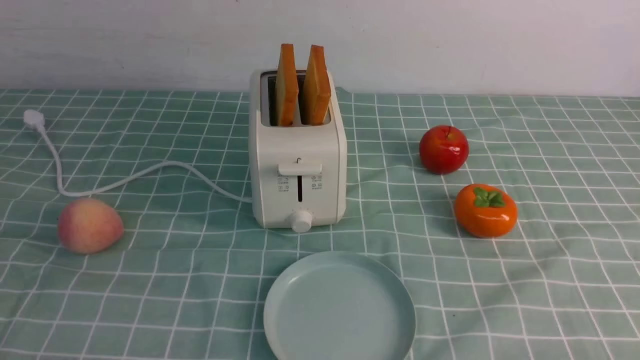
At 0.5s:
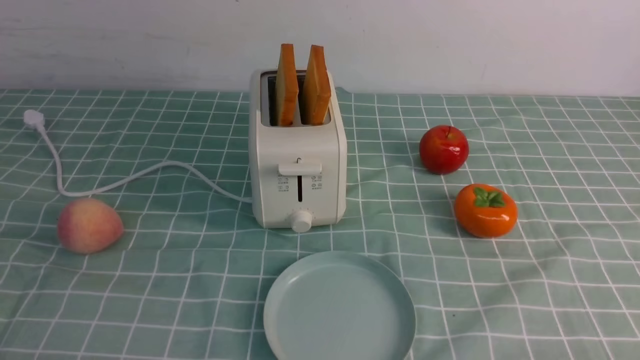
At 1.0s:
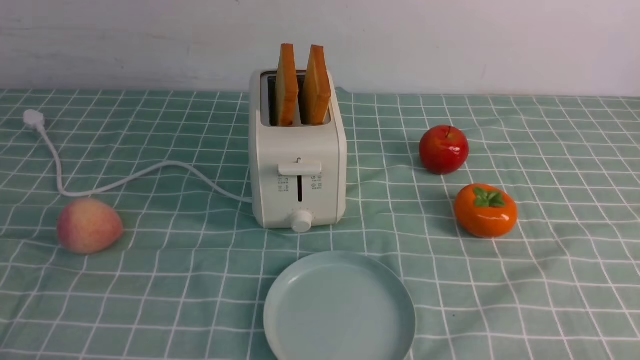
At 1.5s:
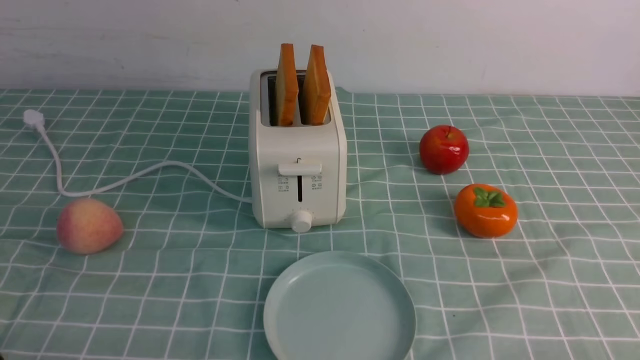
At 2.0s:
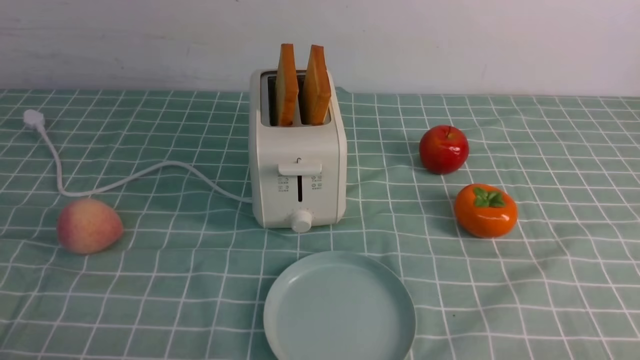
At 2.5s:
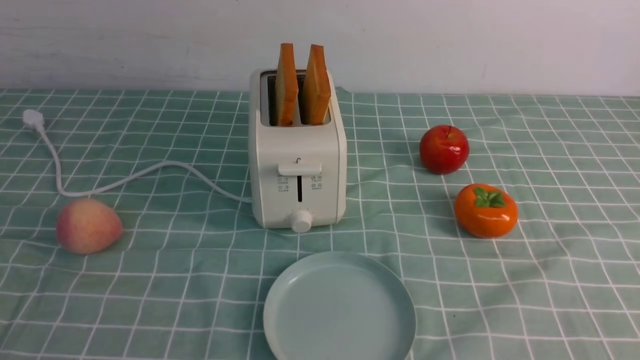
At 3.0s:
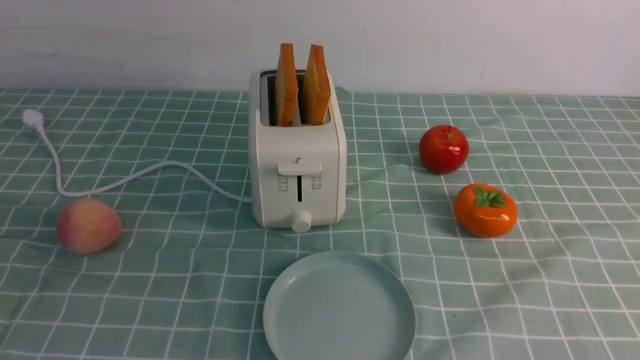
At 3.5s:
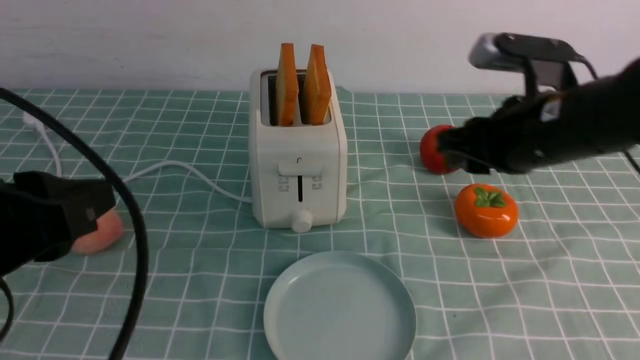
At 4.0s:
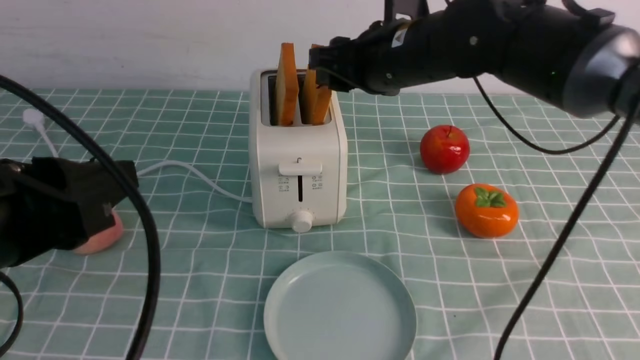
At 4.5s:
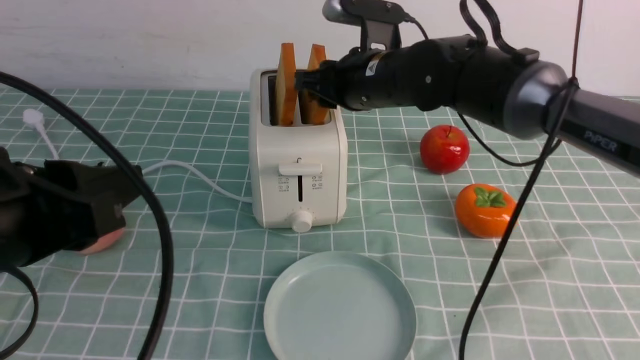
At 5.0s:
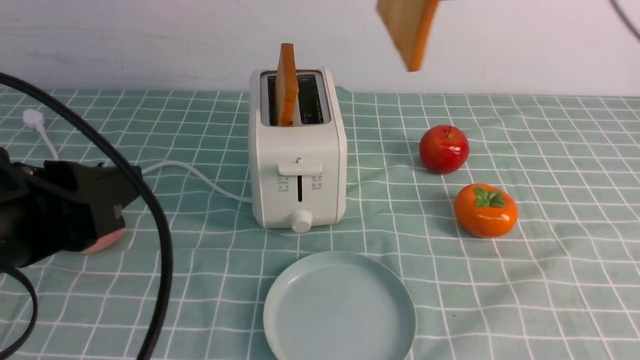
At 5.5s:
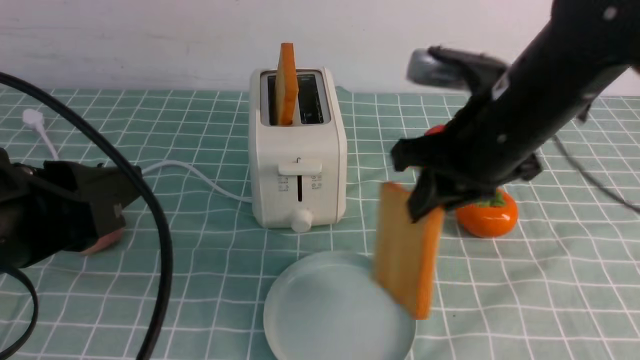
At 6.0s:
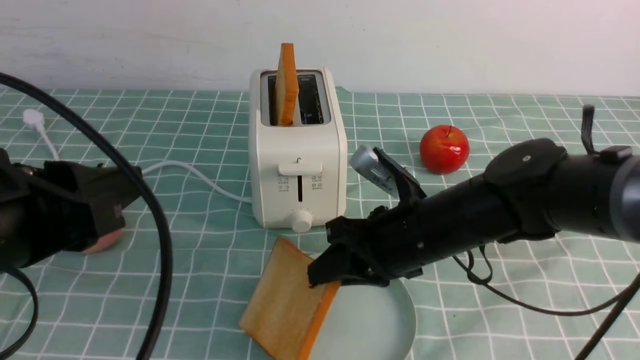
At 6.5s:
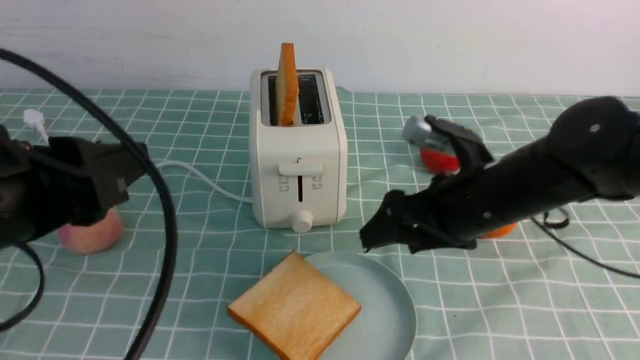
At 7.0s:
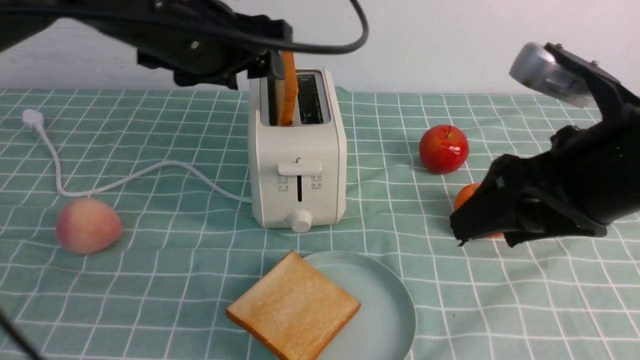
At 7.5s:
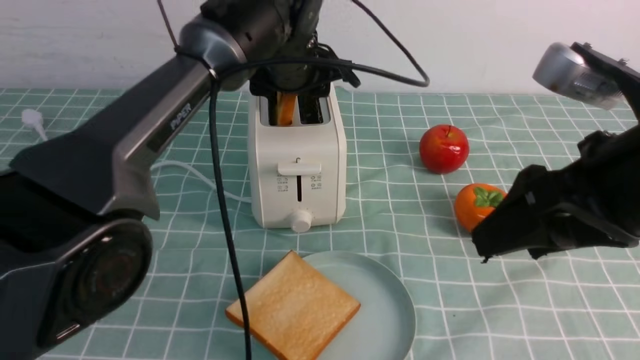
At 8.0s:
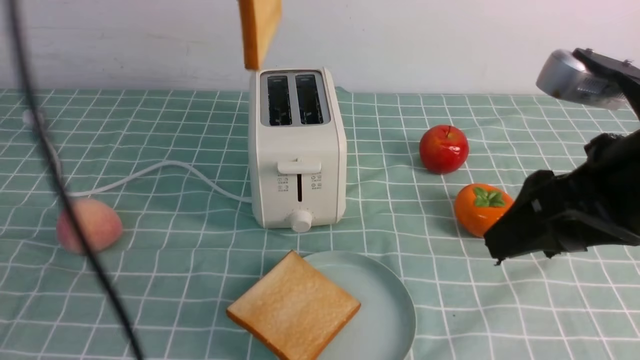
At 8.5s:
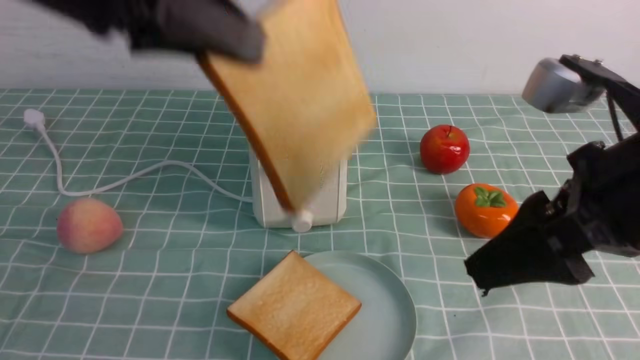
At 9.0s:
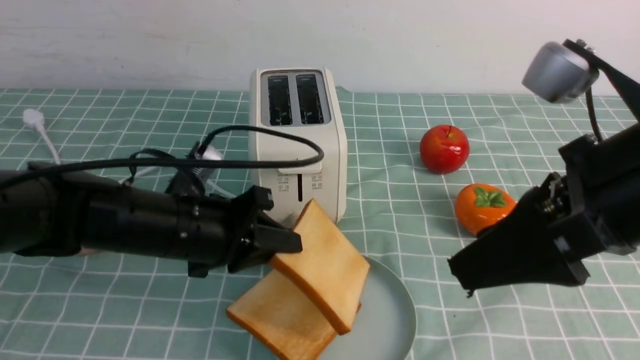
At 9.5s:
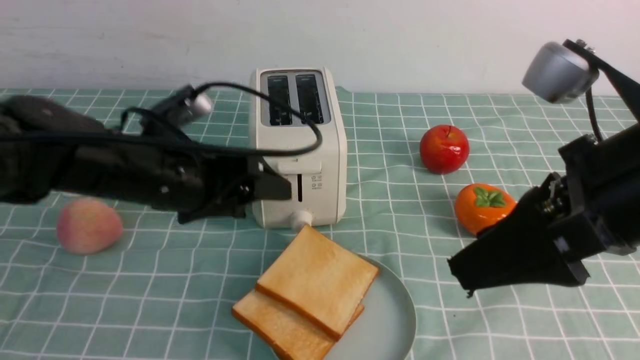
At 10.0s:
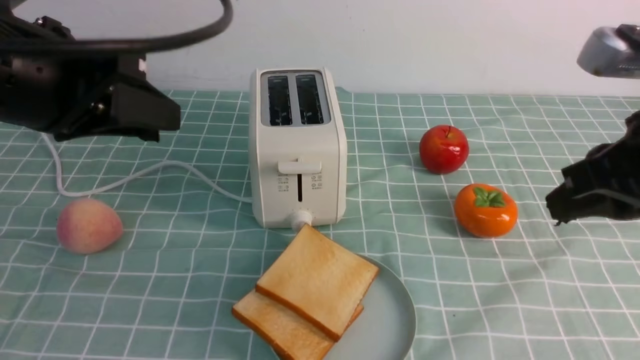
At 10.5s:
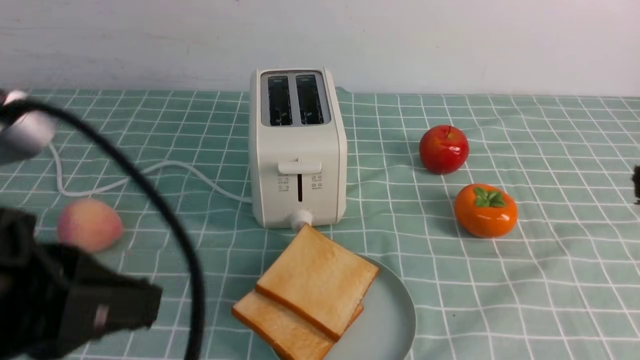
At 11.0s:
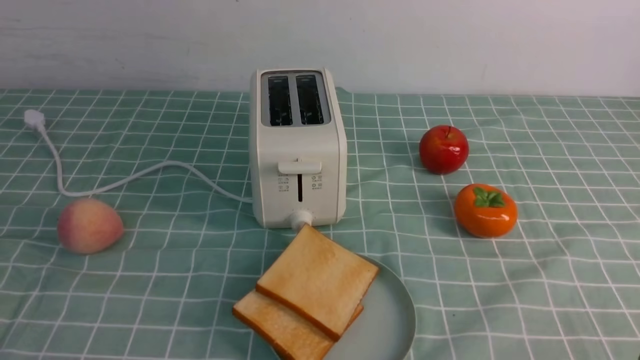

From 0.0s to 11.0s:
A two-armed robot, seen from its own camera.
Task of the whole recording: take toasted bread from bread machine on blue coffee table place on plate.
Step, from 0.0s to 4.5s: use the right arm to take out a slice of bread.
Step, from 5.0s to 6.0s: use the right arm to put a slice of bread into the plate.
Step, from 6.5s to 8.0s: use the left arm to take out a slice of bread.
Step, from 8.5s to 9.5s: use the left arm to put a slice of bread into the empty plate.
From 2.0s to 3.5s: The right gripper is displaced forward, to the left and upward by approximately 30 cm. The left gripper heads upward and forward, covering approximately 15 cm.
From 3.5s to 5.5s: The right gripper reaches roughly 10 cm forward, then returns.
From 5.5s to 7.5s: The left gripper goes some 35 cm forward and to the right; the right gripper moves backward and to the right, roughly 10 cm, moves about 10 cm downward and comes back, and opens.
From 7.5s to 9.0s: The left gripper is displaced backward, downward and to the left by roughly 20 cm, and closes its fingers.
From 9.0s to 11.0s: The right gripper shifts some 20 cm downward, backward and to the right, and closes. Meanwhile the left gripper heads backward, covering some 30 cm, and opens, then closes once more.

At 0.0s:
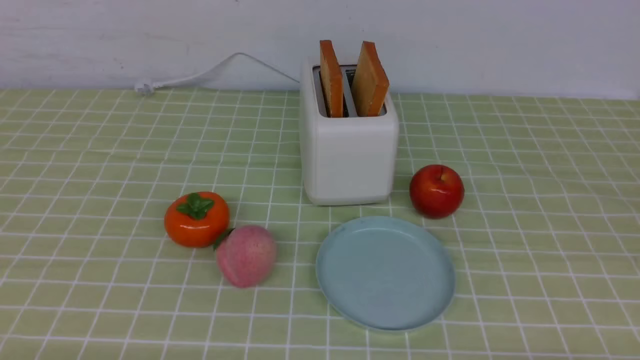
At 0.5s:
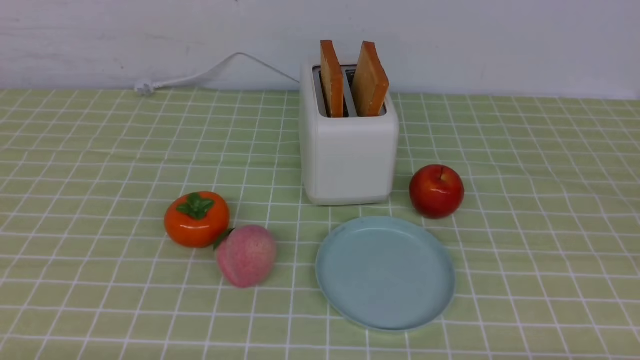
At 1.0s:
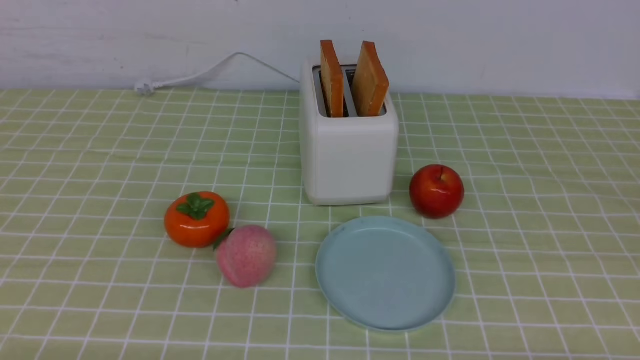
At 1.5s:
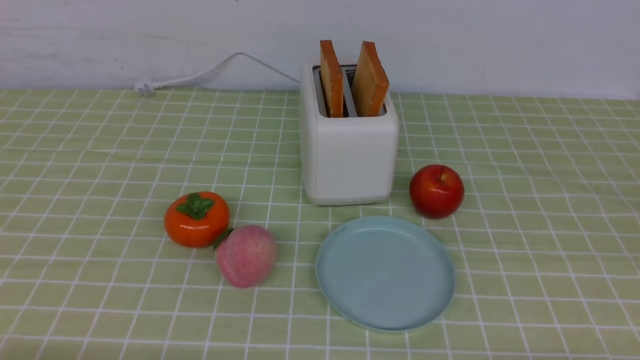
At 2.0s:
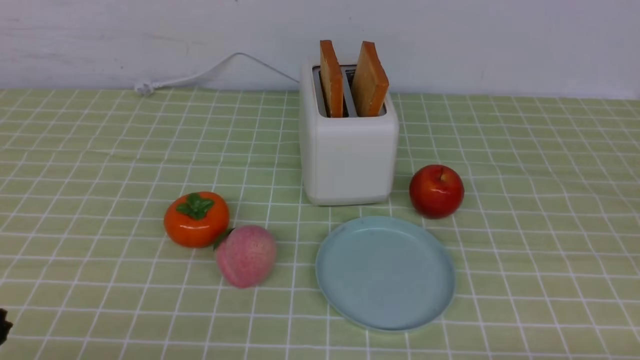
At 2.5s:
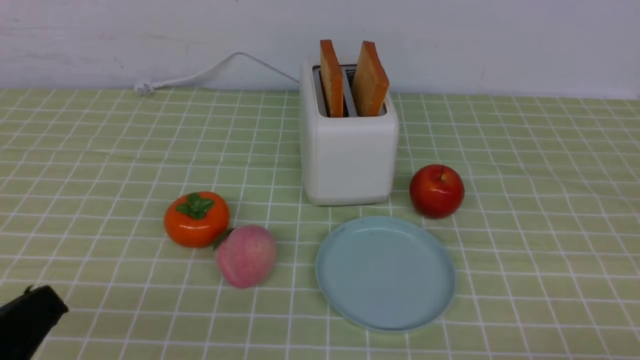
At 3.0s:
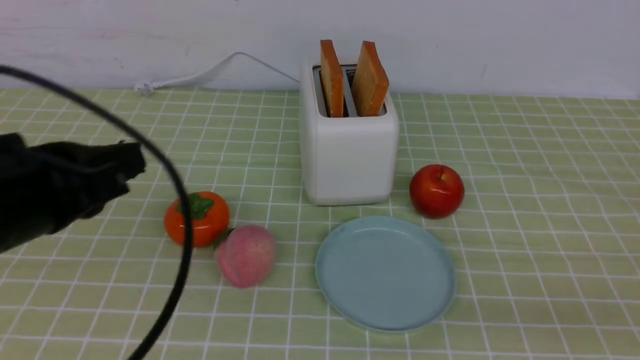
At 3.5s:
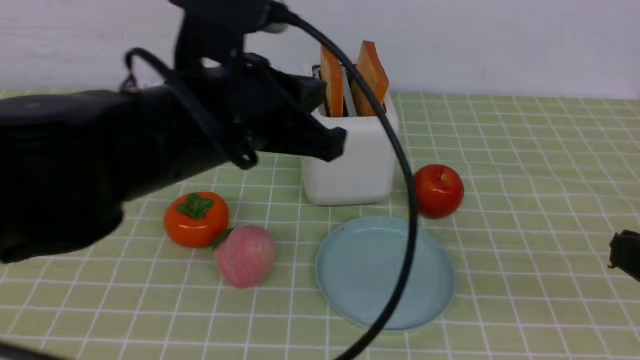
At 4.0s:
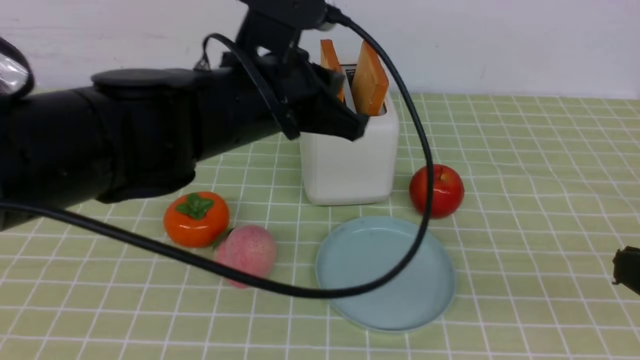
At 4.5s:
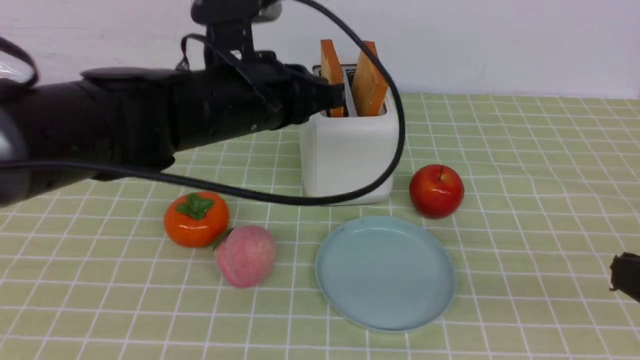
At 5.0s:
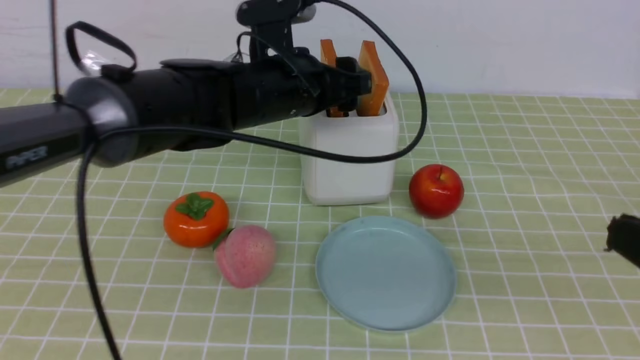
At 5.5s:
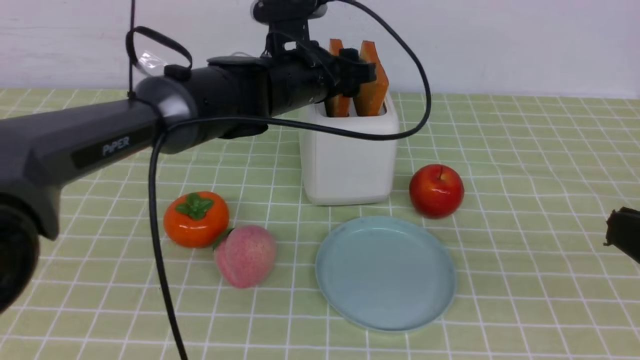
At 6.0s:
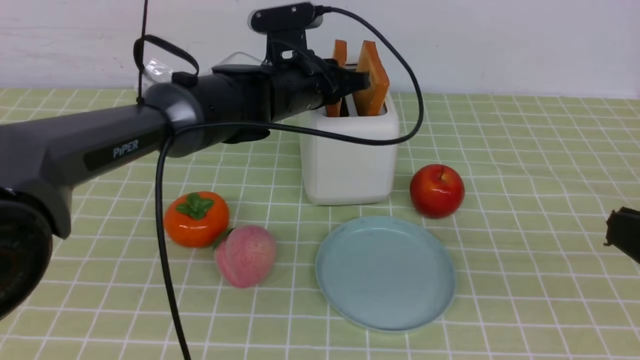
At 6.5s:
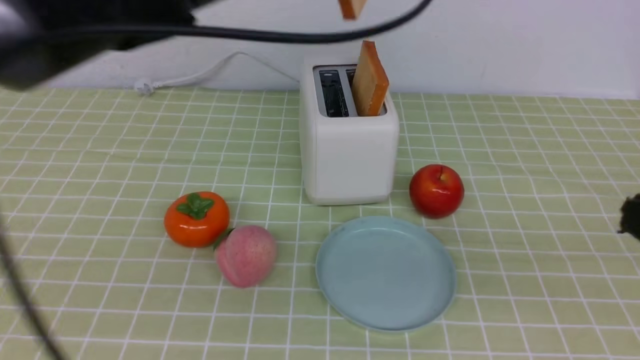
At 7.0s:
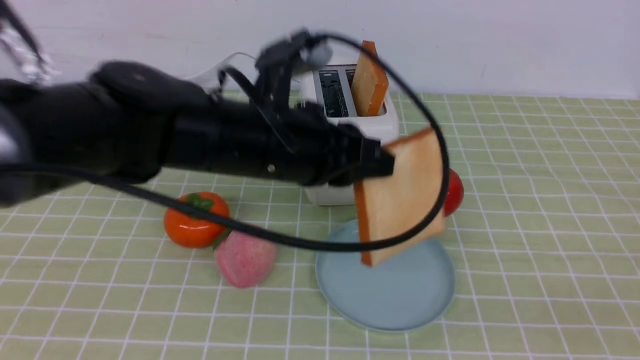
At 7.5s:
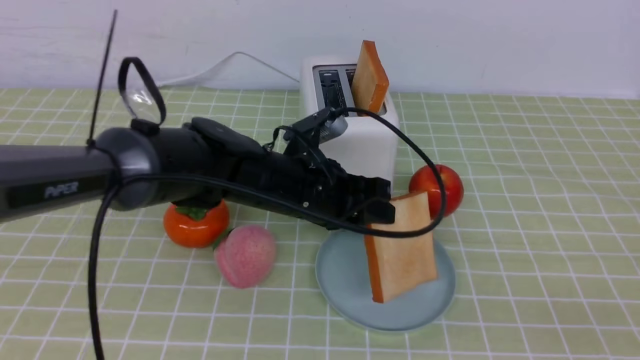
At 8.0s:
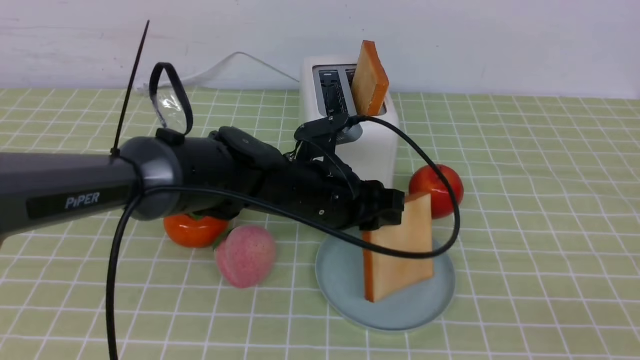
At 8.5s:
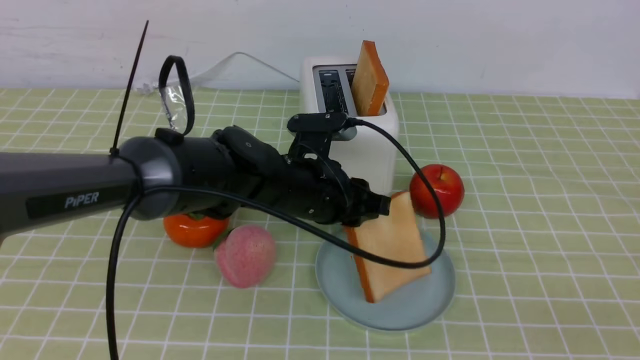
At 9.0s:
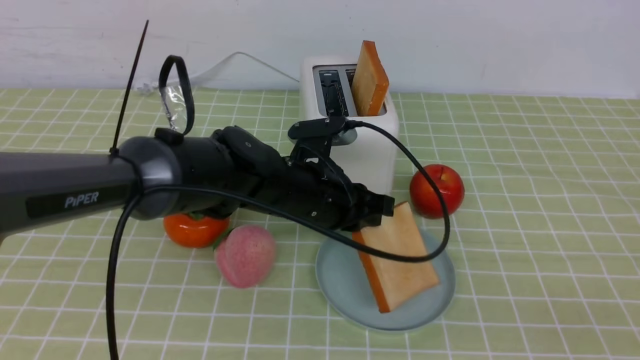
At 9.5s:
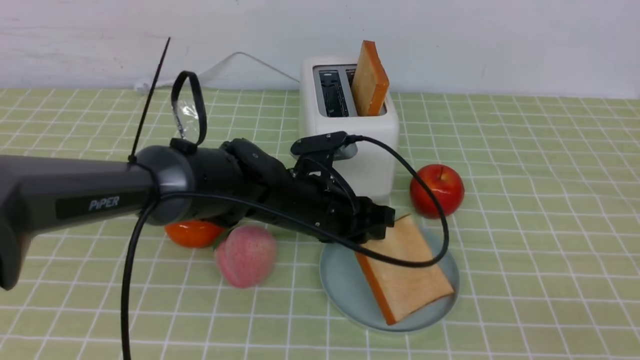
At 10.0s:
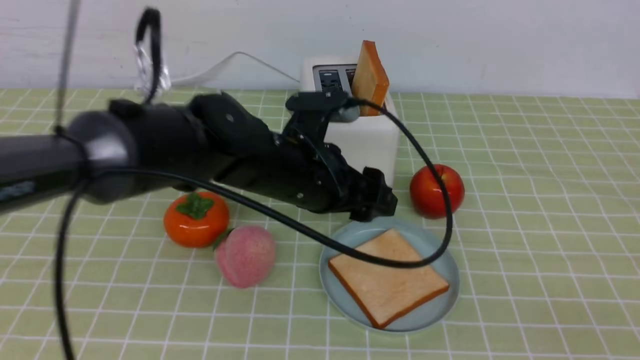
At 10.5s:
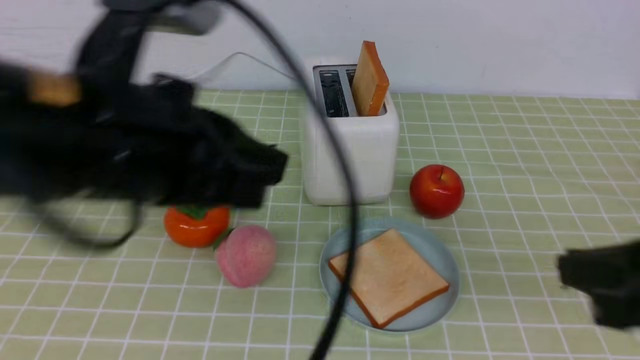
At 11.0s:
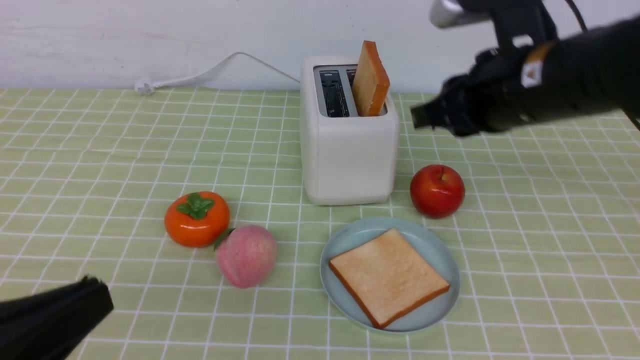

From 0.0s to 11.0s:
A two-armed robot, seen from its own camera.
Task of the whole recording: take toasted bread from bread machine on green coffee tablecloth place on plate.
Step, from 0.0s to 6.0s: use the left arm to take out a slice of bread.
Step, from 6.5s to 9.5s: use the left arm to put a slice of bread into the empty plate.
From 2.0s to 3.5s: The right gripper is displaced upward by approximately 15 cm, and closes, while the left gripper shifts some 30 cm forward, to the right and upward, and closes up.
From 3.5s to 5.5s: The left gripper is displaced forward by about 20 cm, and opens its fingers.
From 5.5s to 7.5s: The left gripper travels backward by approximately 10 cm, moves roughly 15 cm upward and comes back, and closes. Meanwhile the right gripper is displaced backward by about 5 cm.
From 7.5s to 9.0s: There are only small adjustments of the grippers.
From 9.0s to 11.0s: The left gripper is displaced backward and to the left by approximately 35 cm, and opens, then closes again, while the right gripper travels forward and to the left by roughly 30 cm.
